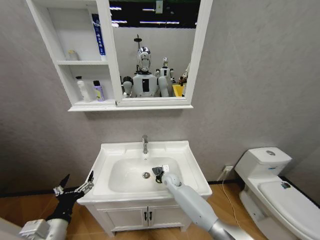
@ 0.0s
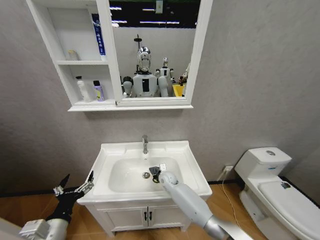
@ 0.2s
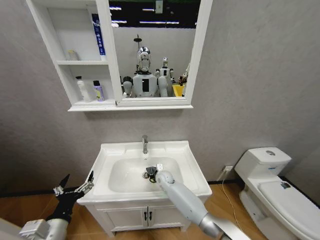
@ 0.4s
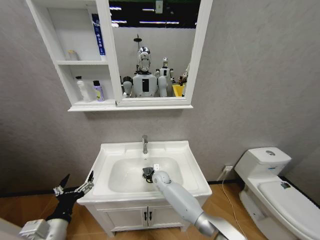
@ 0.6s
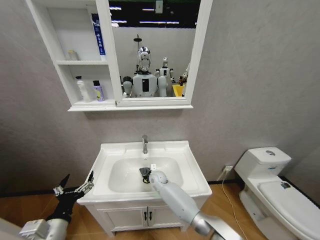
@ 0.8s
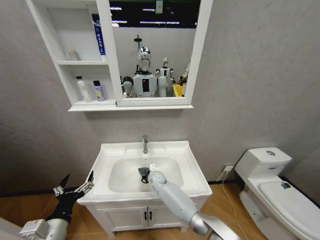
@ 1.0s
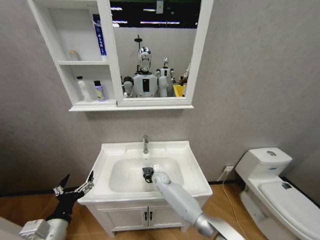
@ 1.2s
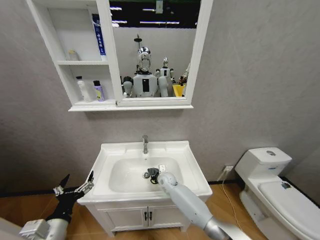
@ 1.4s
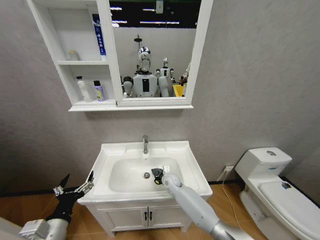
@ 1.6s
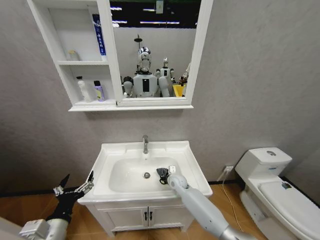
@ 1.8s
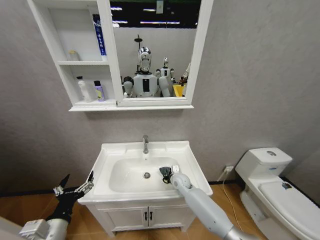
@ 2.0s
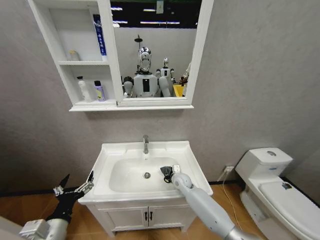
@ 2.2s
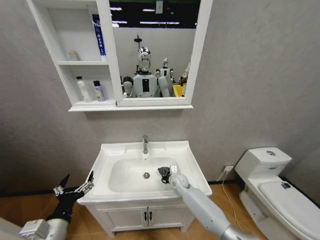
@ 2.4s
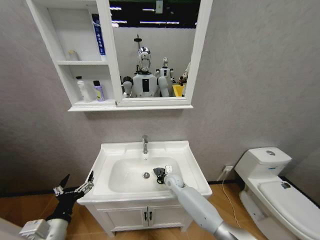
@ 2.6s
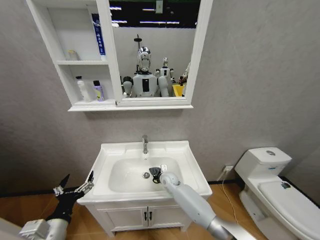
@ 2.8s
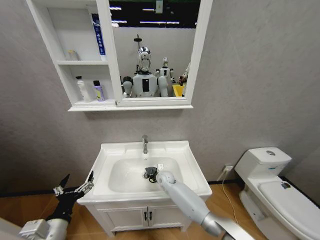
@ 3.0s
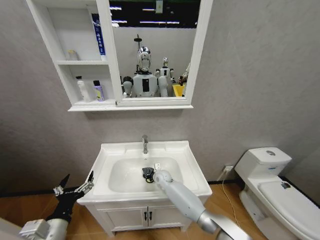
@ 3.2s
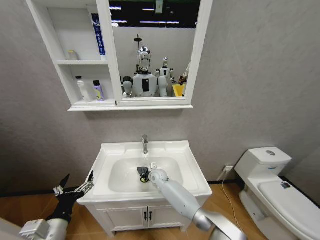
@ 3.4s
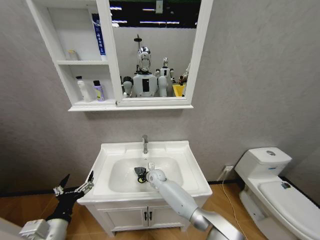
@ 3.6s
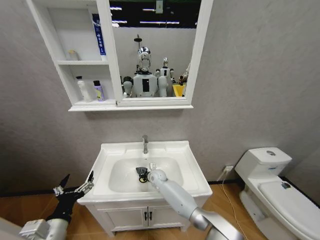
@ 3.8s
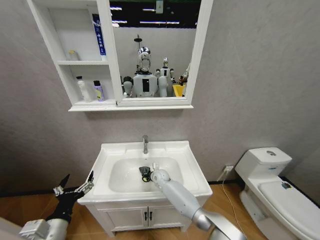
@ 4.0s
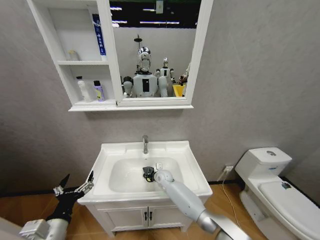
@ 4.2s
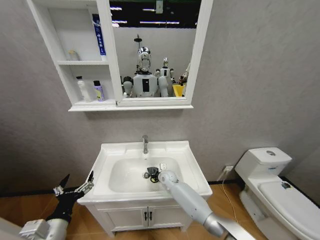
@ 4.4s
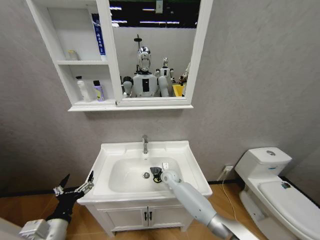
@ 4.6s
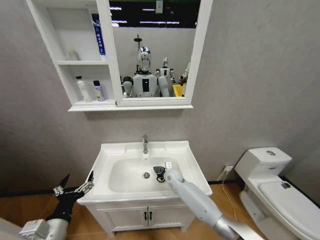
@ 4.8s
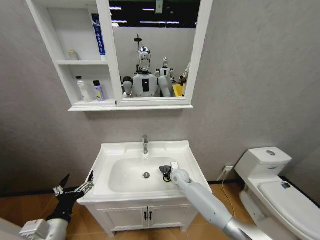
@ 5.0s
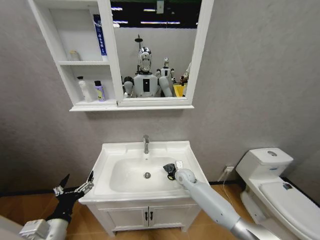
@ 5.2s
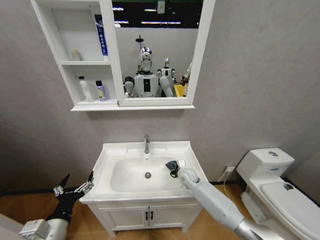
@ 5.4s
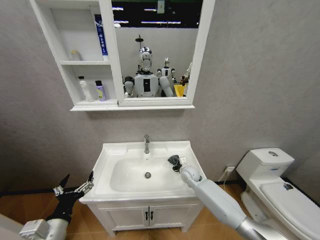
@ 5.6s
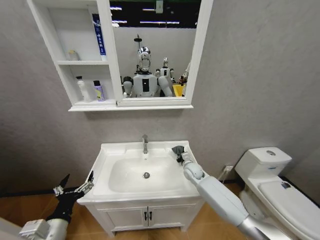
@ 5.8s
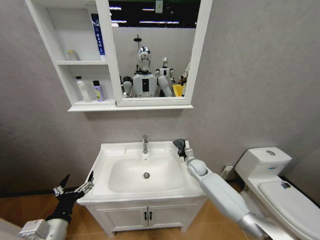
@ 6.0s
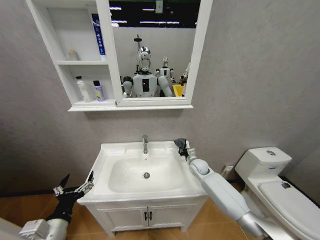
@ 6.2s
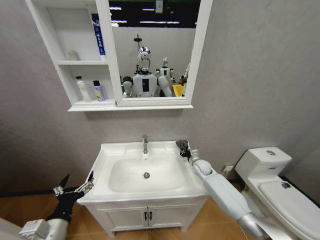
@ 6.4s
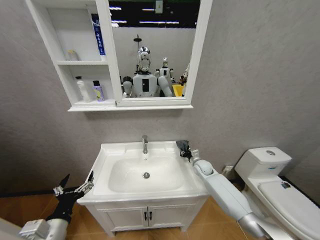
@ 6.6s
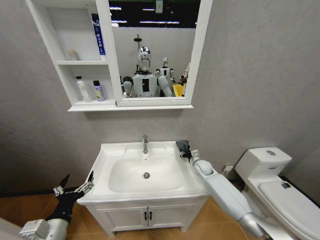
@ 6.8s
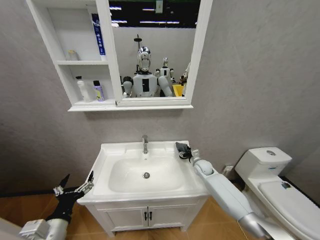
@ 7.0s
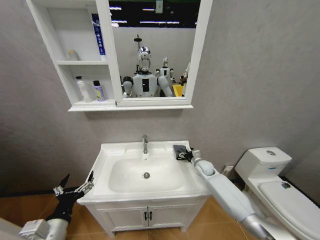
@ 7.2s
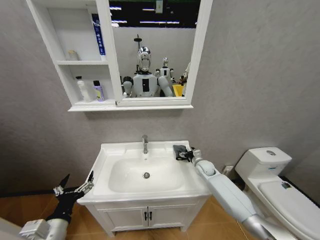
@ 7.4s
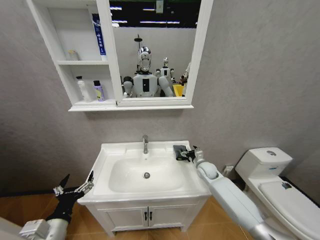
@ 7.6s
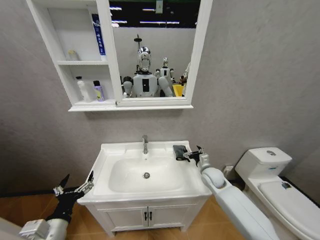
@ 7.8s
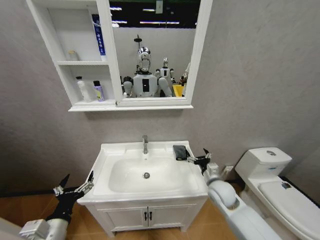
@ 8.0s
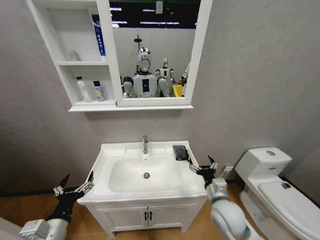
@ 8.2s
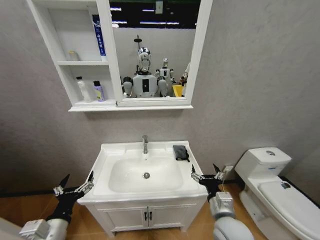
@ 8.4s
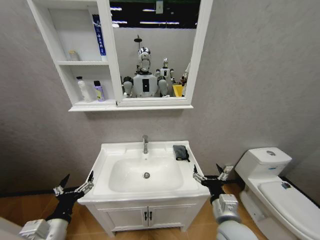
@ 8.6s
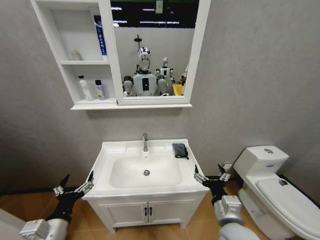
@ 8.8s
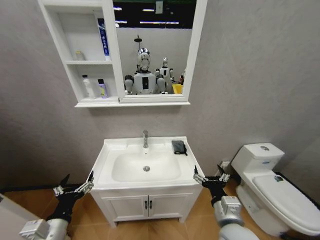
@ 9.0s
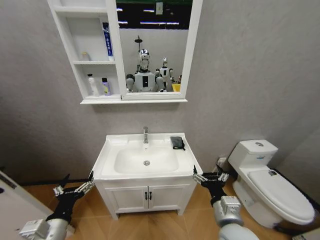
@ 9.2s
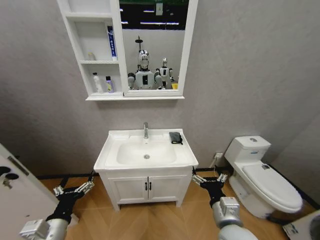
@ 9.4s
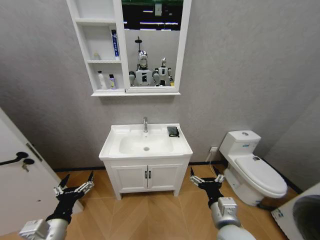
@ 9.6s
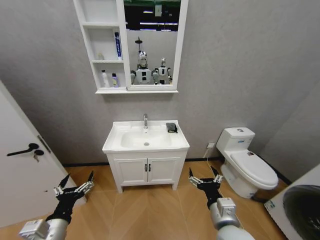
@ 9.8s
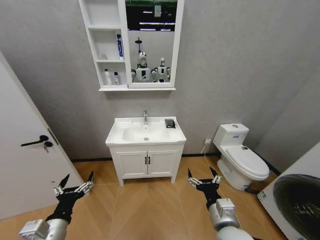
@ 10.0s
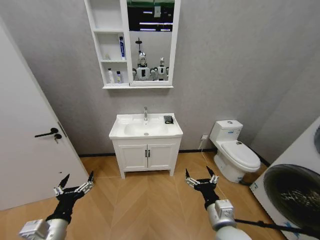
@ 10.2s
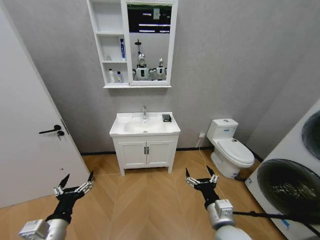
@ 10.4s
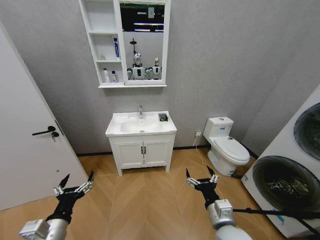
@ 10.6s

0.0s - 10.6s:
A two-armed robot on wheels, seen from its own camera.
Task of the whole recording: Move facial cleanser and shampoo from washbasin to cabinet, then wipe washbasin with towel.
1.6s - 3.0s: There are only small adjustments of the grippers.
3.0s - 4.6s: The grippers make only small movements.
4.6s - 6.0s: The right gripper shifts about 15 cm to the right and upward.
6.0s - 7.6s: The right gripper is displaced to the right by approximately 5 cm, and opens.
7.6s - 9.0s: The right gripper goes approximately 30 cm backward.

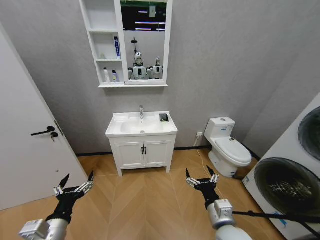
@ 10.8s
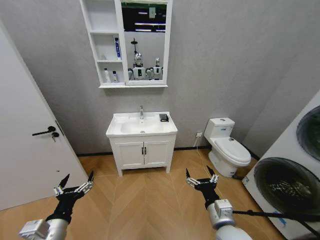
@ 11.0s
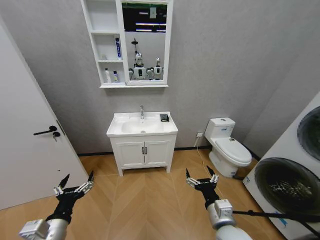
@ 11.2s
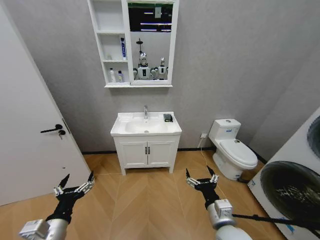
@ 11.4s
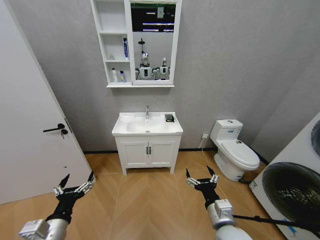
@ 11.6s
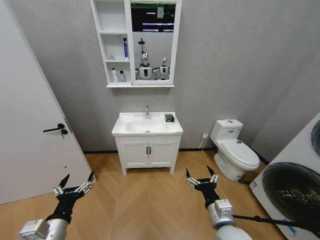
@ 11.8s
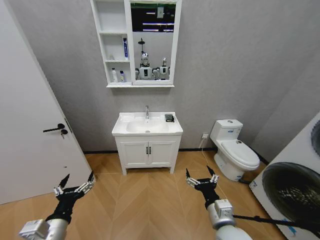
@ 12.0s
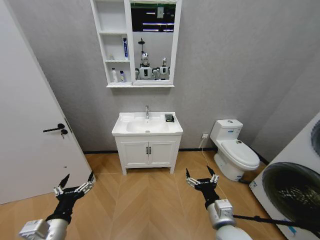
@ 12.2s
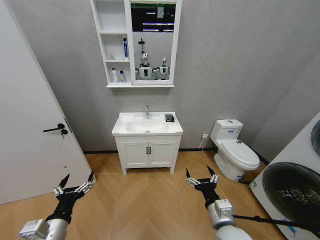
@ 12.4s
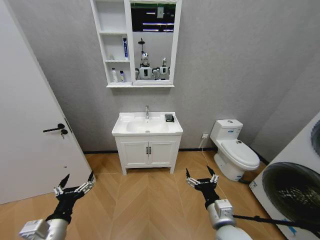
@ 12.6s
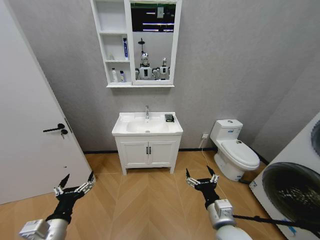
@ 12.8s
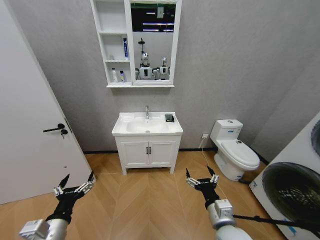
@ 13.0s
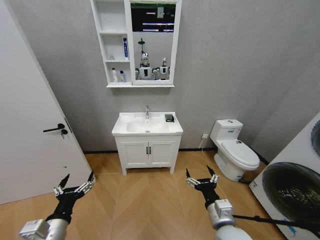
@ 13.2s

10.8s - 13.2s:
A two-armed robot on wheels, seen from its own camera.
Task of the whole recording: Move facial cleanser and shampoo from washbasin to cabinet, then wipe washbasin with towel.
10.8s - 13.2s: Both grippers stay about where they are.
